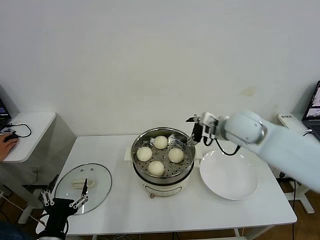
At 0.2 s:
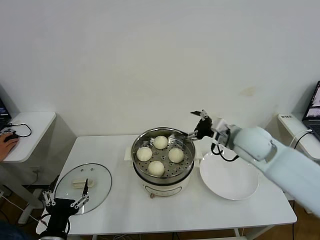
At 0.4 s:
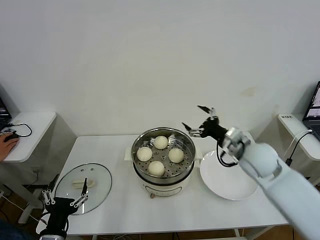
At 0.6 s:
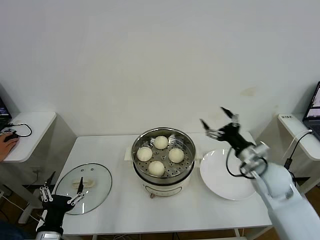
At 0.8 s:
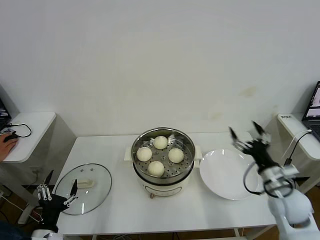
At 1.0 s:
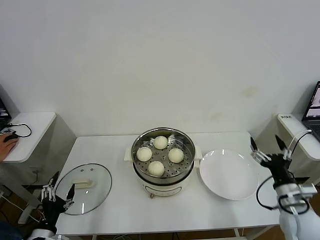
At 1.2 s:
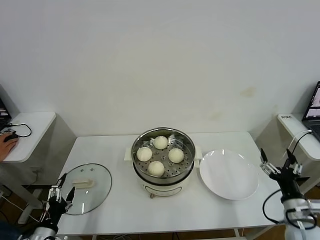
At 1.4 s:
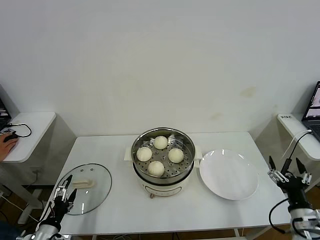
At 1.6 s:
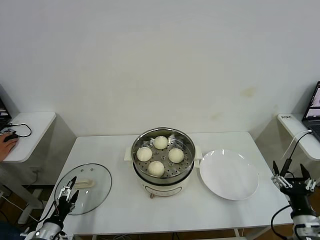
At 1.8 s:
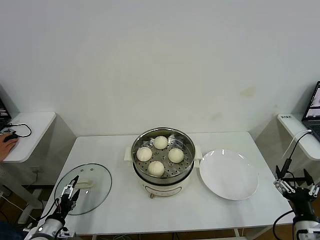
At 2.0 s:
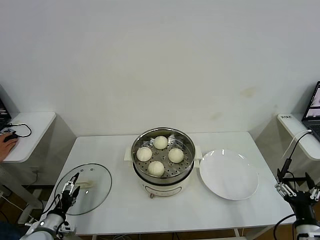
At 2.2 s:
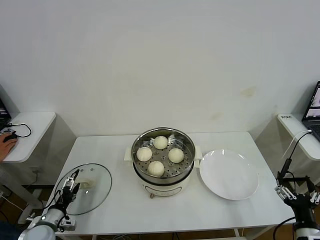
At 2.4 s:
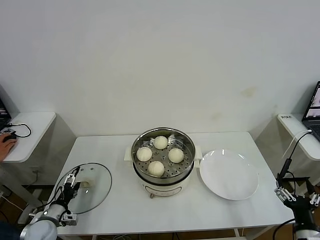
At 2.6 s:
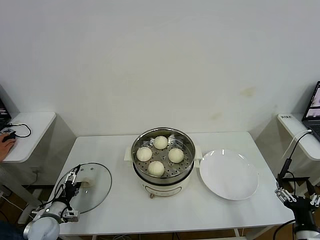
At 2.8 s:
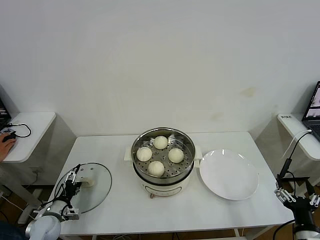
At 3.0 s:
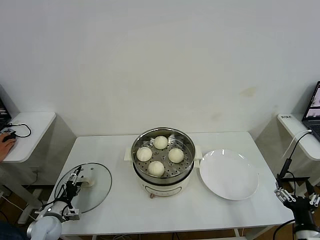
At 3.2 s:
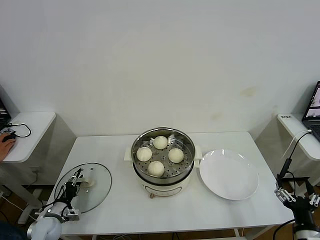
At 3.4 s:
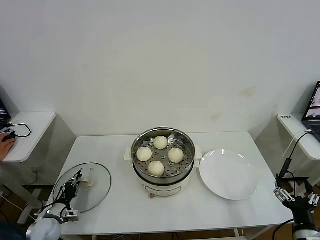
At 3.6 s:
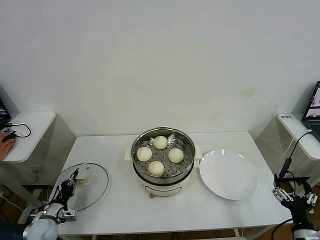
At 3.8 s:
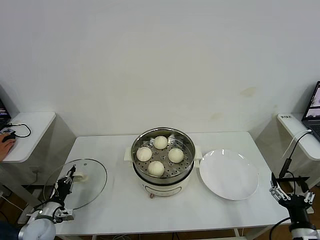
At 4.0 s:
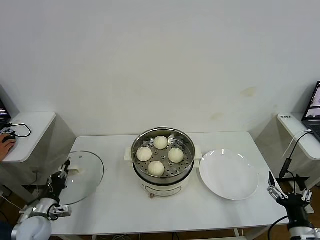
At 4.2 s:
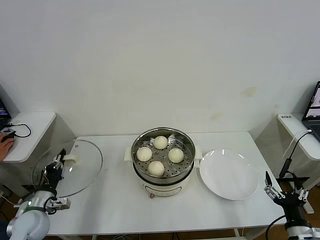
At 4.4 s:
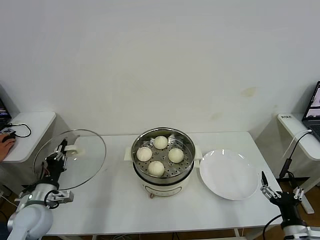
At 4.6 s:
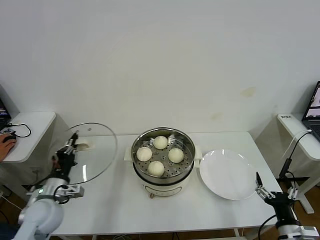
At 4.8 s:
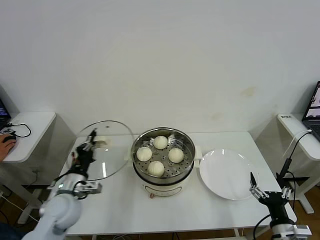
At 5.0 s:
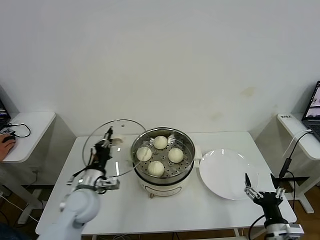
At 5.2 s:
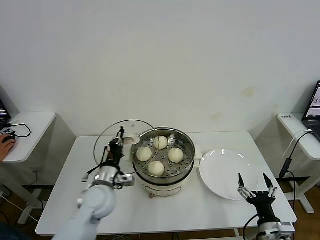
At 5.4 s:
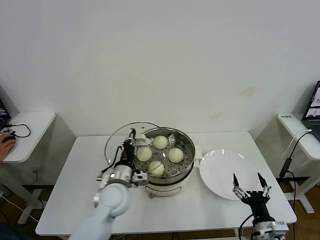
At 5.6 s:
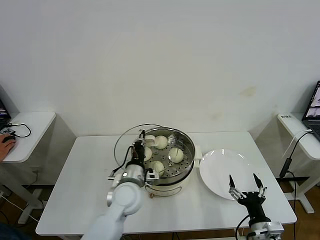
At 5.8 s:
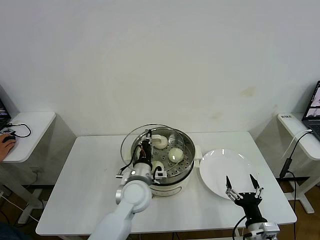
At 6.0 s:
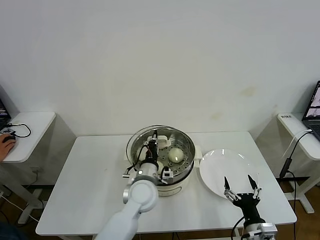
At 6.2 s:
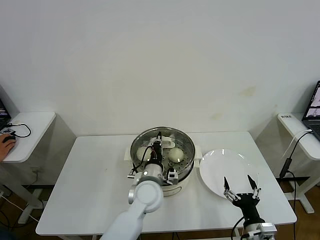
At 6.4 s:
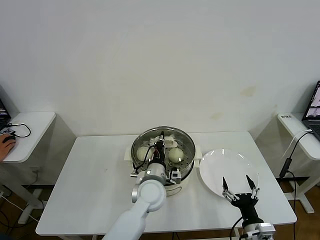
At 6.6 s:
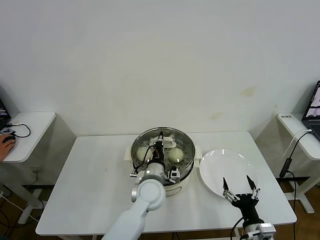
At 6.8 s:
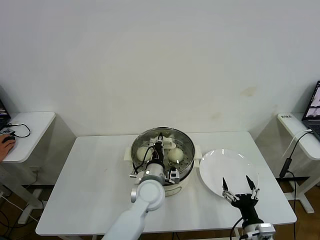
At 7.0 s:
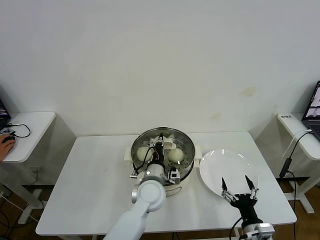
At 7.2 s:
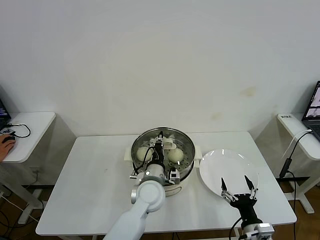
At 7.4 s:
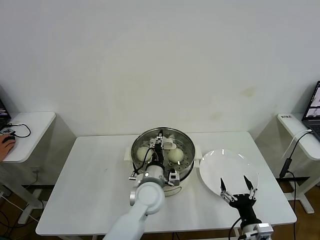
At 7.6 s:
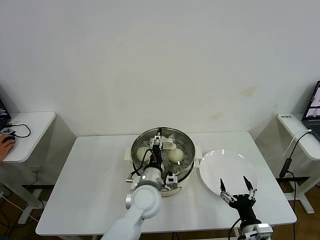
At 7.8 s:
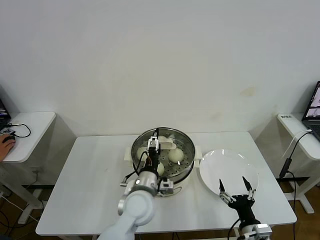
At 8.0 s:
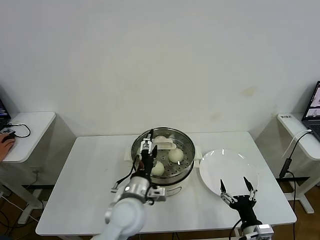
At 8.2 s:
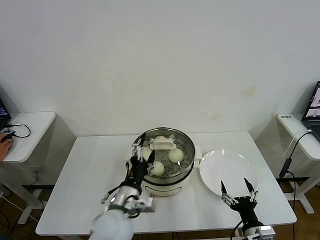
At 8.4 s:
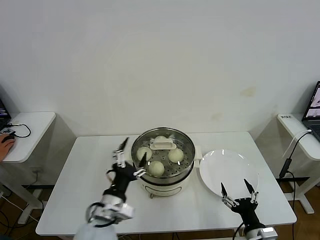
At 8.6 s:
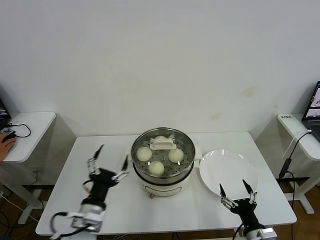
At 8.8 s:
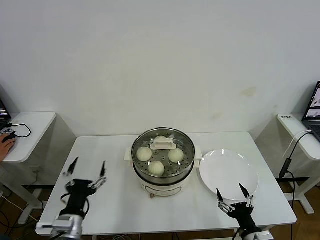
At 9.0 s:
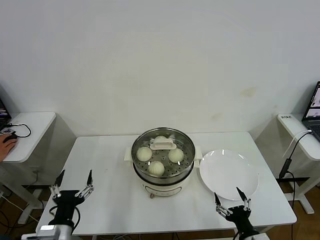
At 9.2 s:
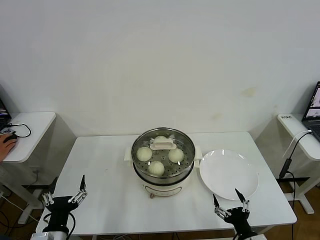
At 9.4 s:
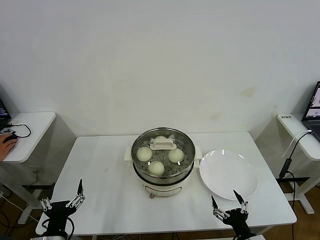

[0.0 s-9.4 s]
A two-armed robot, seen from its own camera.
Task of the whole recording: take steamed baozi put them in steamer then cover it.
Step, 0.0 to 3.6 s: Grasp the pot lid with left gripper.
Step, 3.8 to 7.6 s: Place the pot lid on the steamer with left gripper.
0.0 to 1.6 s: The left gripper goes about 15 cm downward, to the left and forward. Meanwhile the right gripper moves backward, downward and to the right, some 40 cm.
1.6 to 3.2 s: The left gripper goes some 10 cm forward and downward, and closes its fingers.
3.2 to 4.8 s: The left gripper heads upward and to the right, covering about 20 cm, and closes up.
4.8 to 6.2 s: The left gripper heads to the right, covering approximately 25 cm. Meanwhile the right gripper travels to the left by roughly 5 cm.
6.2 to 7.8 s: The left gripper opens.
7.8 to 9.4 s: The left gripper goes roughly 30 cm to the left and backward.
